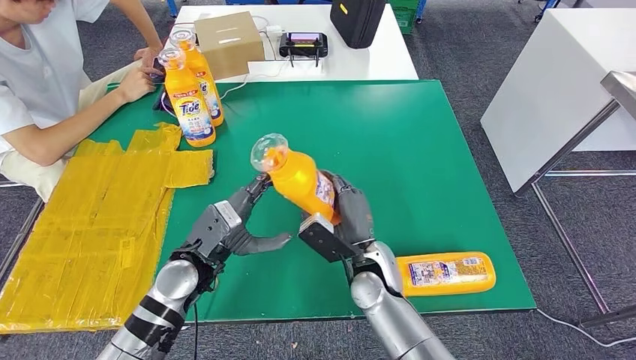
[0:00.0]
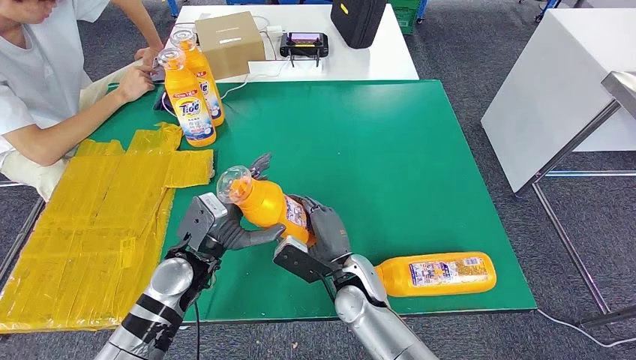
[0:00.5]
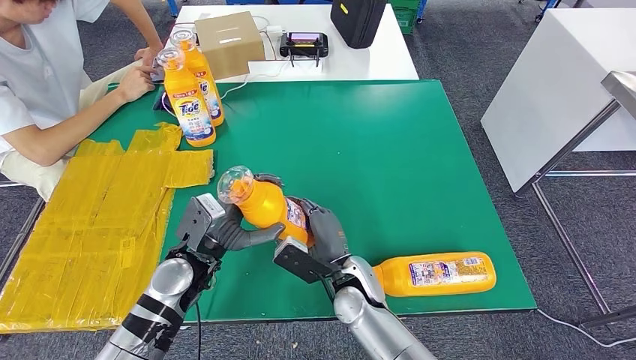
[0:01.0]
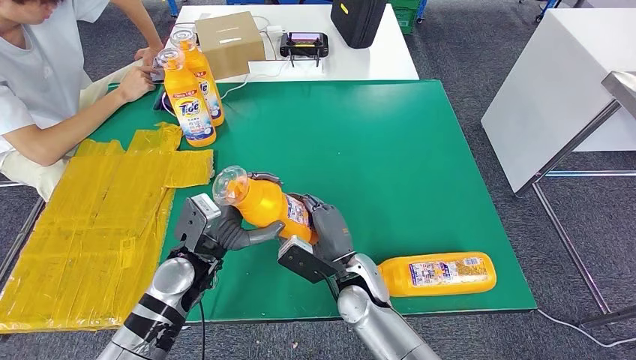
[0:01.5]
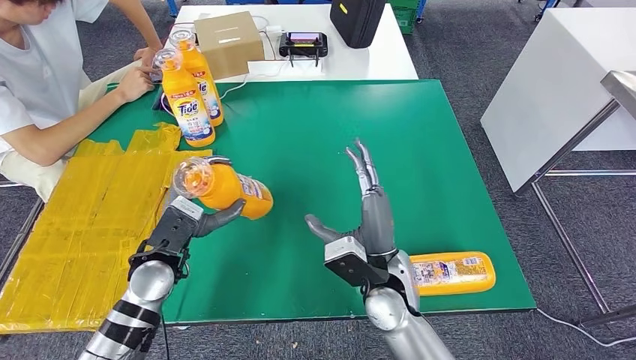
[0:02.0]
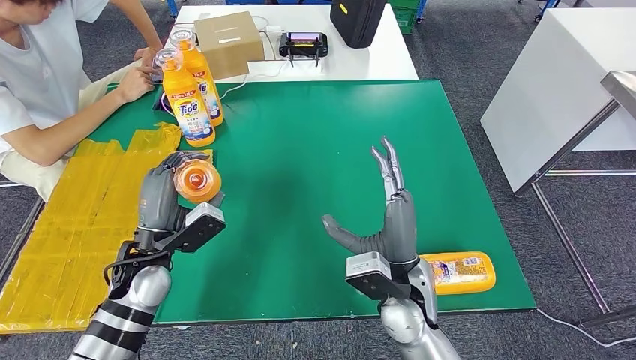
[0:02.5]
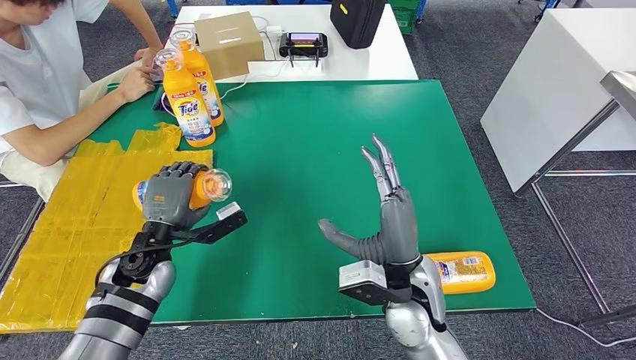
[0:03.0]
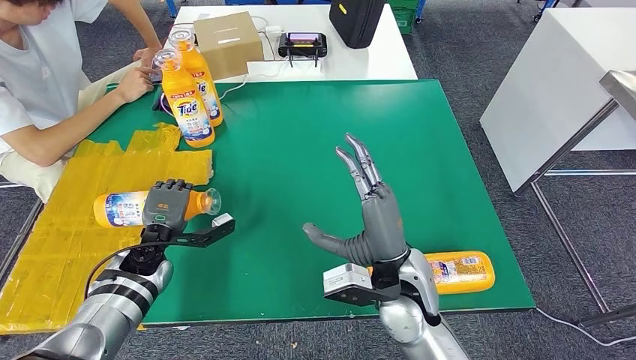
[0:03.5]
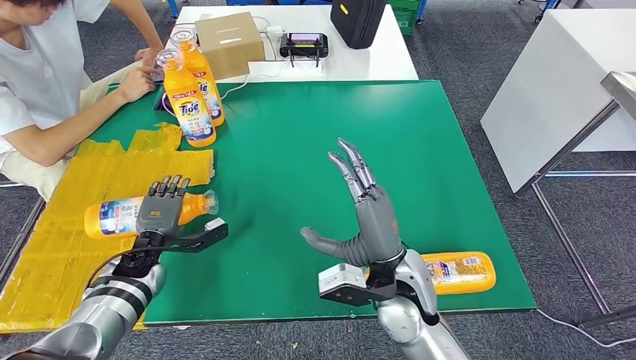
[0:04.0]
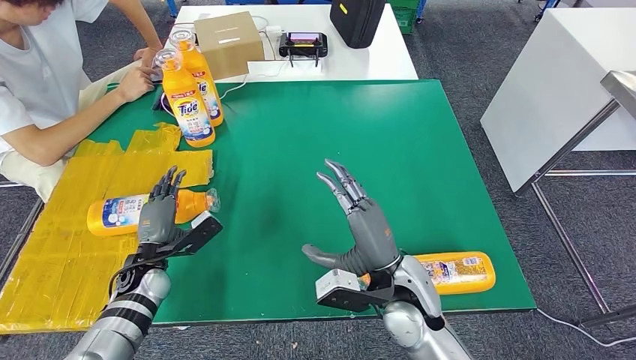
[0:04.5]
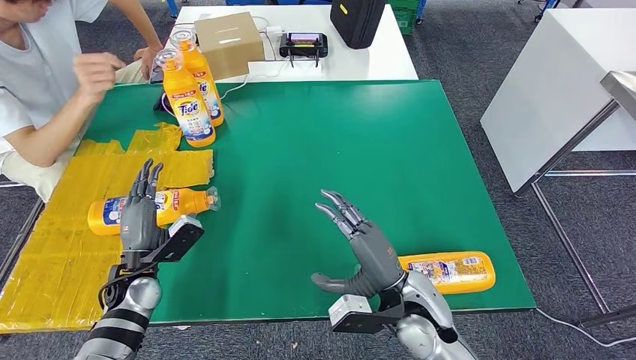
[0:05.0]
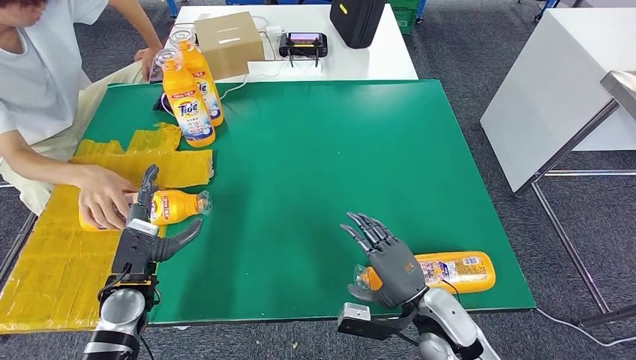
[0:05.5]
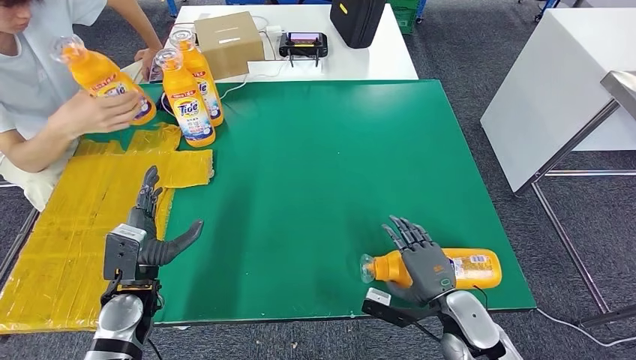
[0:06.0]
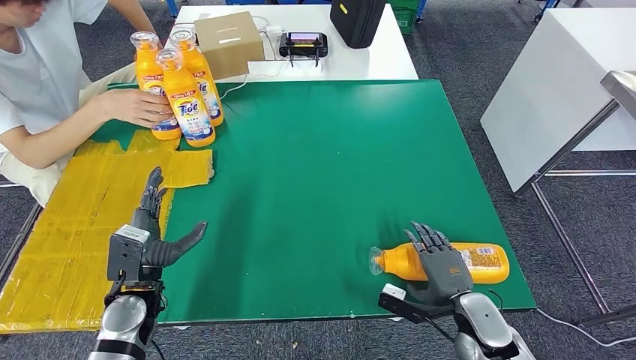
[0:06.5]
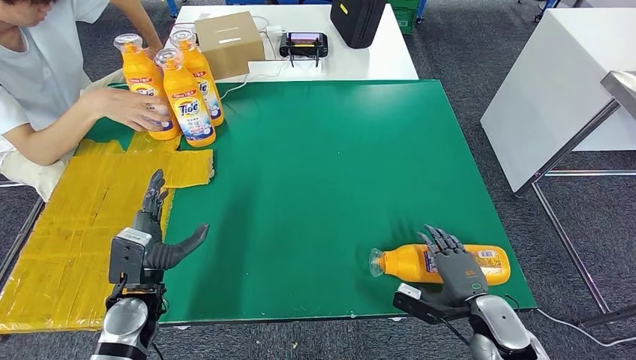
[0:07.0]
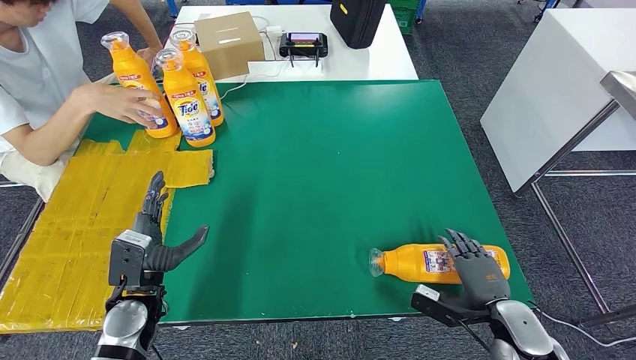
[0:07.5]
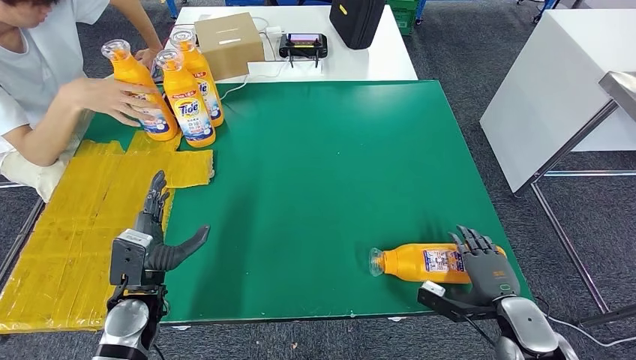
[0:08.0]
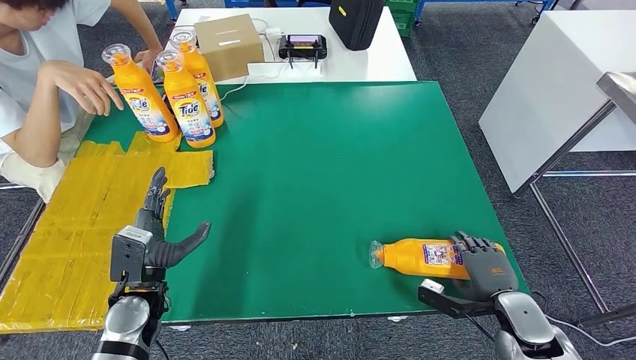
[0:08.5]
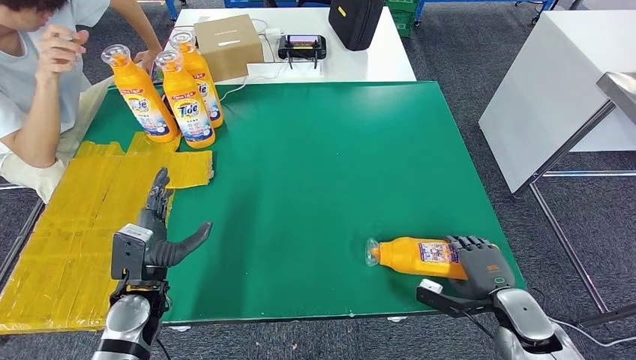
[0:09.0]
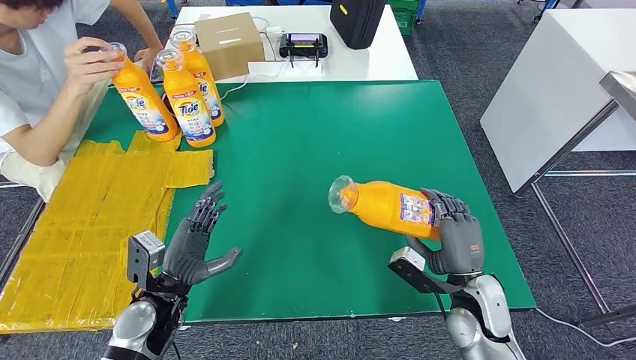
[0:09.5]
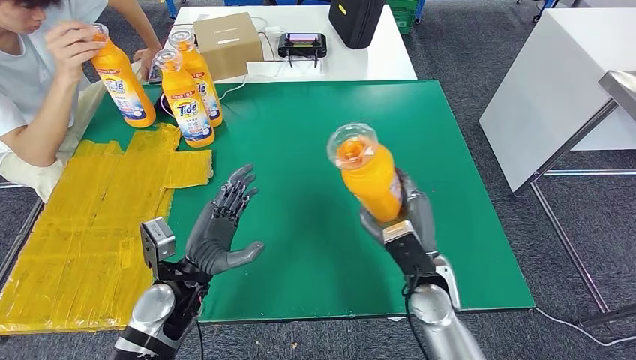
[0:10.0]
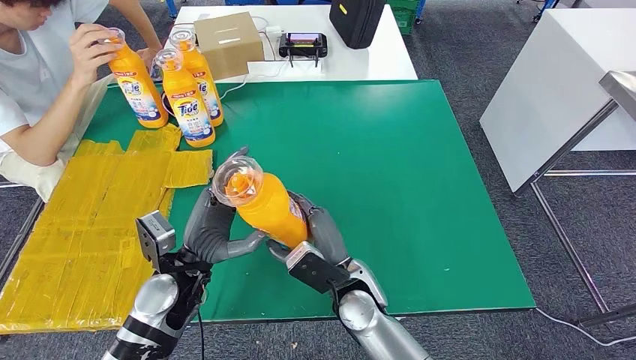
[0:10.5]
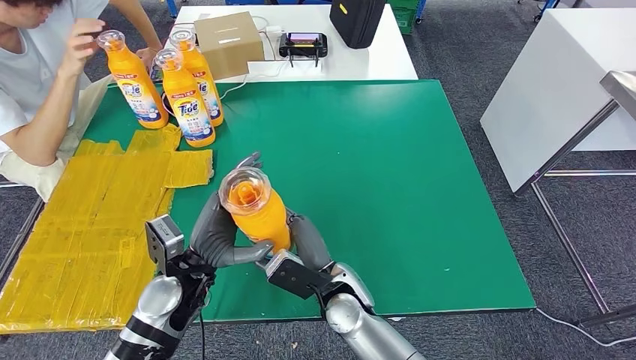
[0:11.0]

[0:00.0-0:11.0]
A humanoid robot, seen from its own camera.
Step, 0:00.5 to 0:04.0: Flip the fast-moving consumer goods bottle to the front side.
Step, 0:07.0 to 0:09.5: Pick up the fast-moving consumer goods bottle from the table.
0:00.0 to 0:02.0: The left hand goes about 5 cm to the left. Meanwhile the right hand moves some 5 cm.
0:02.0 to 0:03.5: The left hand is displaced downward, to the left and forward by roughly 10 cm.
0:03.5 to 0:05.5: The left hand is displaced backward by some 10 cm; the right hand heads downward and to the right, covering roughly 10 cm.
0:05.5 to 0:07.5: The right hand shifts about 15 cm to the right.
0:07.5 to 0:09.0: The hands move only a little.

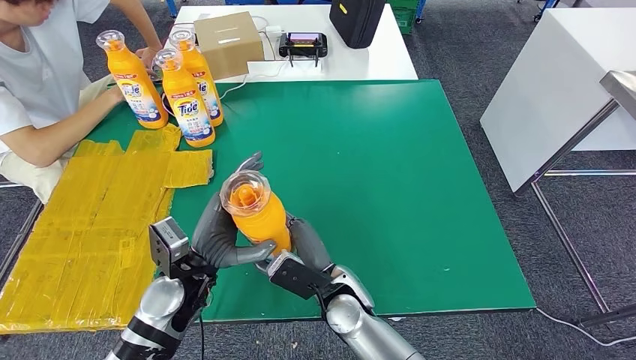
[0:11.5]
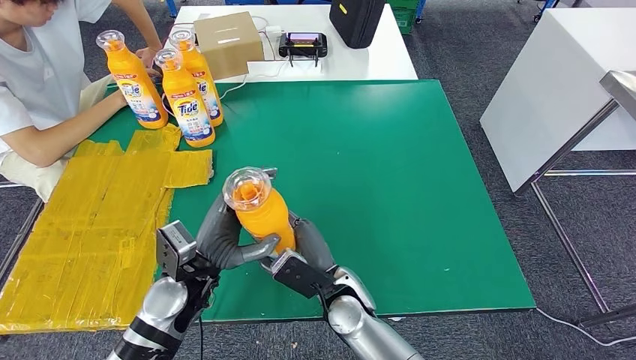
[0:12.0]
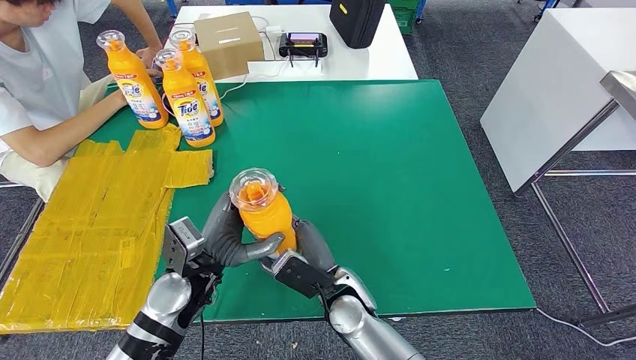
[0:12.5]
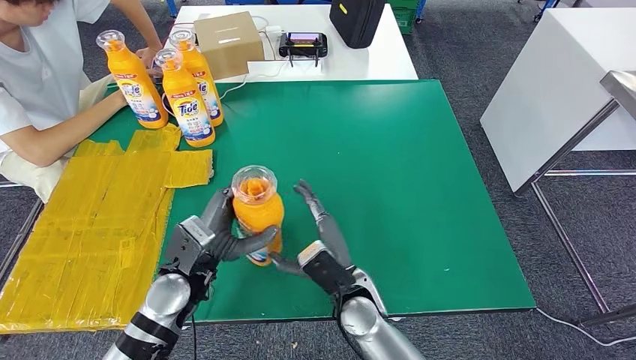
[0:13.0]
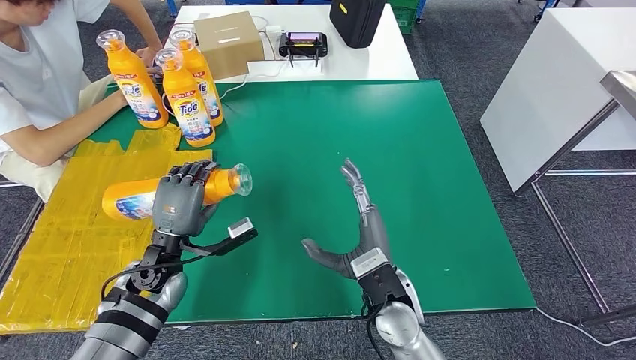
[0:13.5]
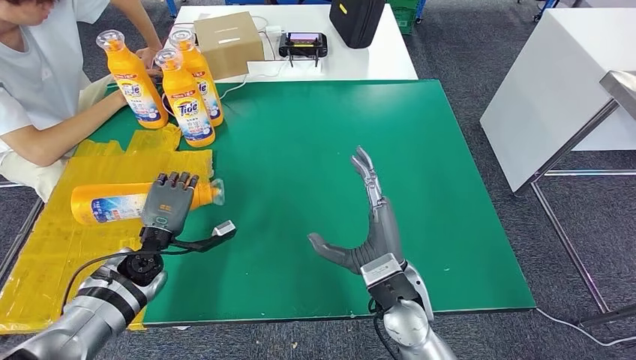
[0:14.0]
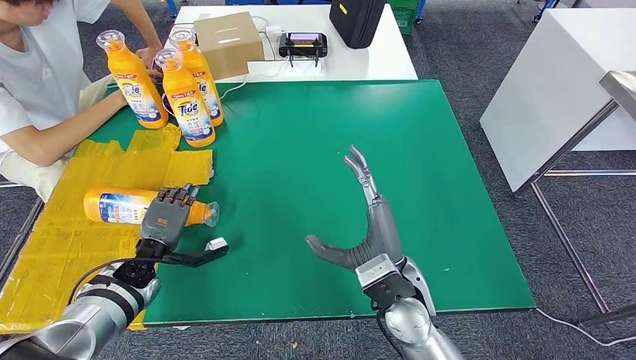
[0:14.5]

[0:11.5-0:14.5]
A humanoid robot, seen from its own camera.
Step, 0:11.5 to 0:14.5: Flip the fast-moving consumer goods bottle to the front side.
0:11.5 to 0:13.0: The hands stay close to where they were, moving slightly.
0:13.0 to 0:14.5: The left hand moves to the left, downward and forward, approximately 20 cm. The right hand moves upward and to the right, approximately 10 cm.
